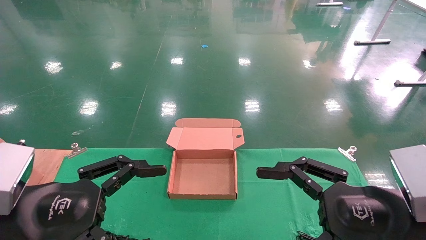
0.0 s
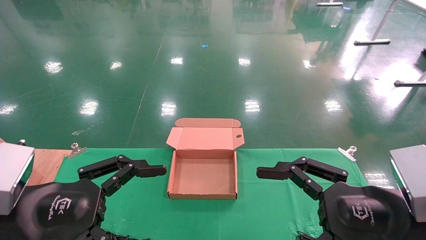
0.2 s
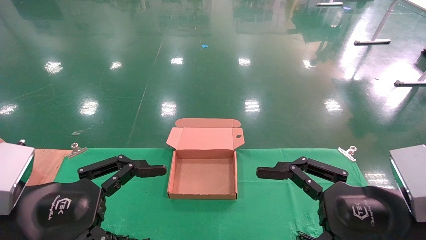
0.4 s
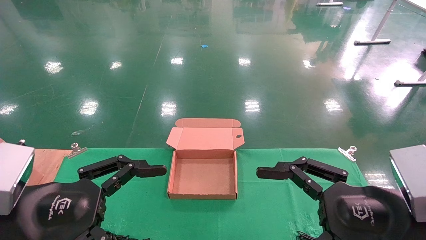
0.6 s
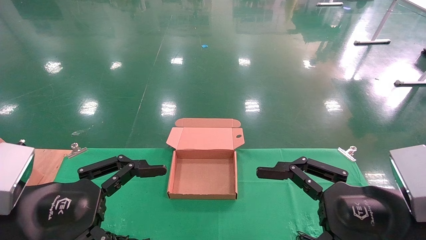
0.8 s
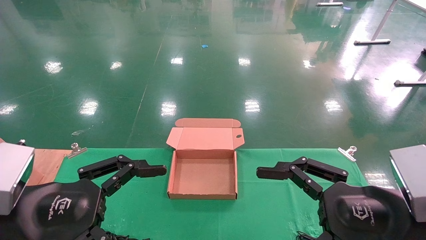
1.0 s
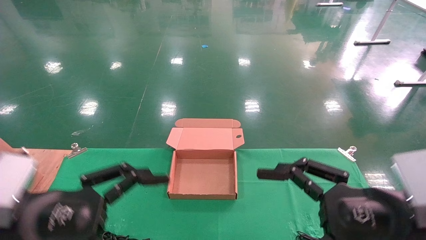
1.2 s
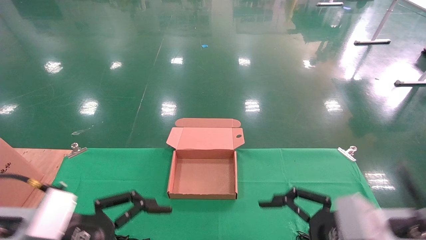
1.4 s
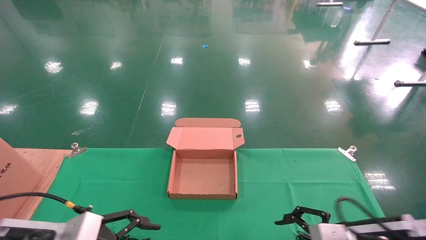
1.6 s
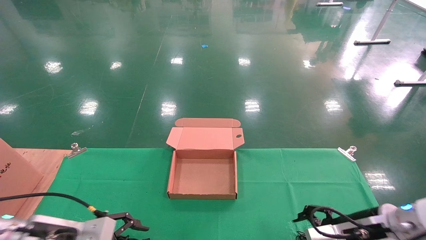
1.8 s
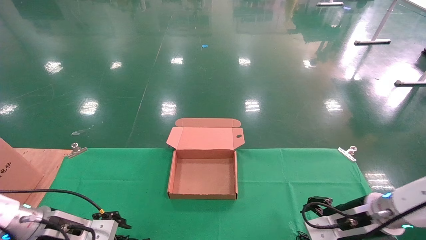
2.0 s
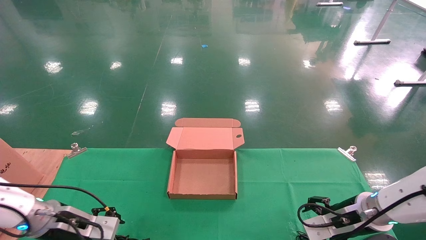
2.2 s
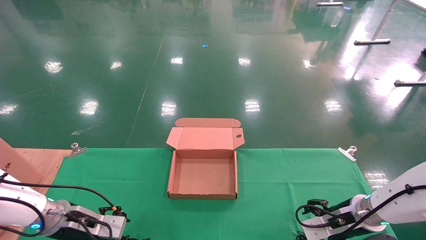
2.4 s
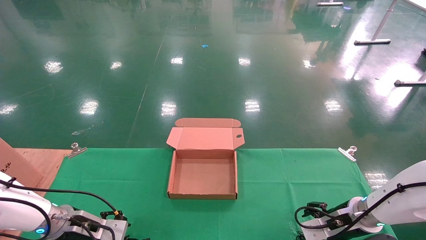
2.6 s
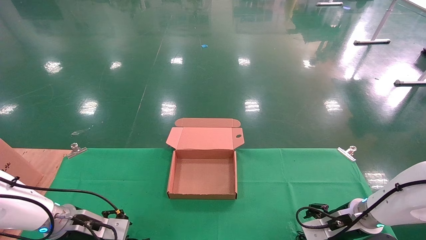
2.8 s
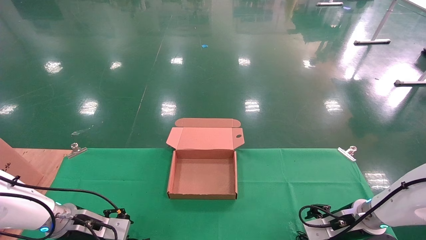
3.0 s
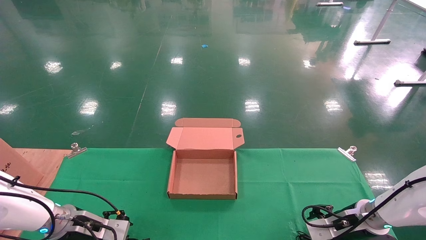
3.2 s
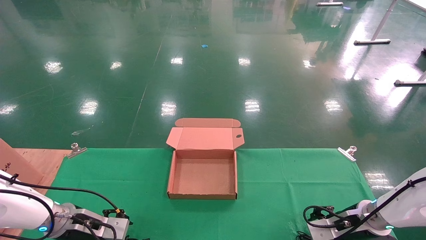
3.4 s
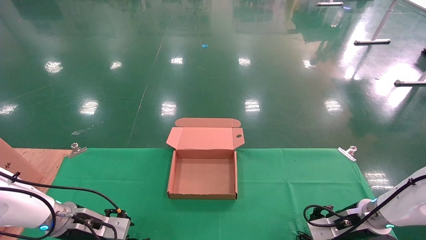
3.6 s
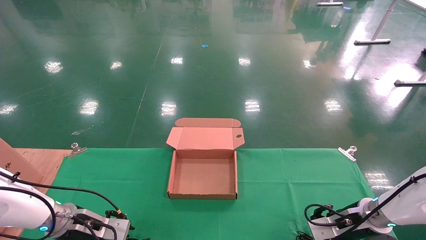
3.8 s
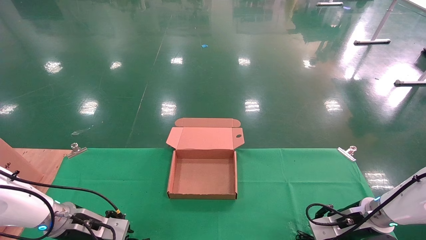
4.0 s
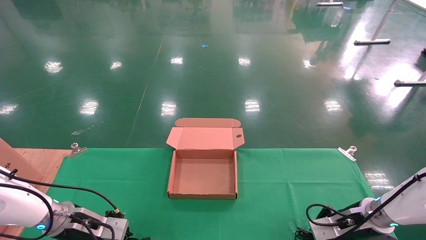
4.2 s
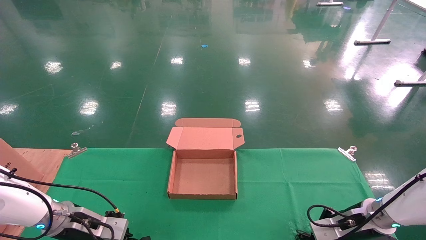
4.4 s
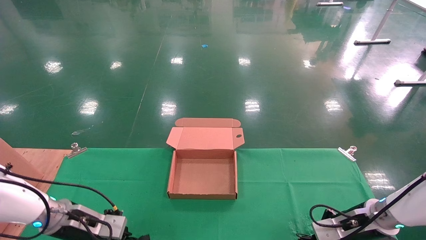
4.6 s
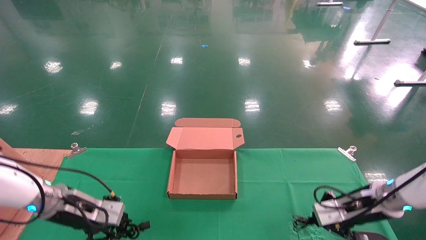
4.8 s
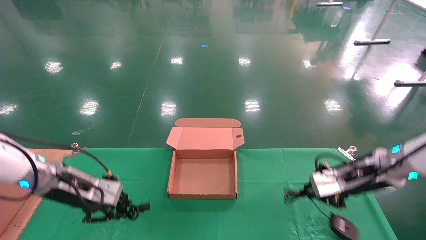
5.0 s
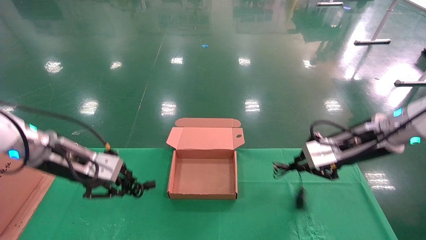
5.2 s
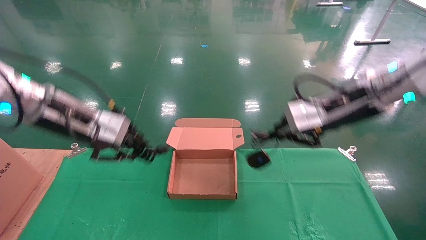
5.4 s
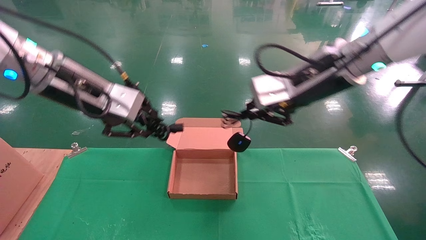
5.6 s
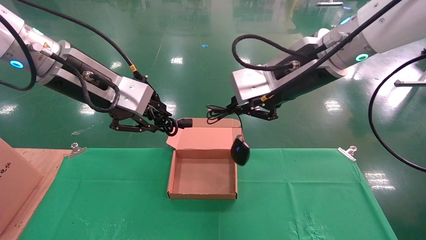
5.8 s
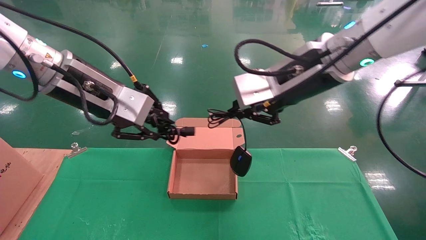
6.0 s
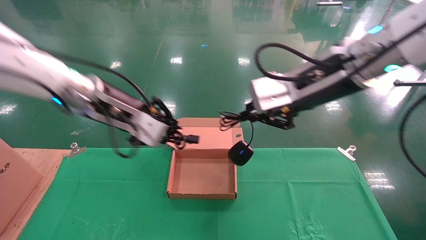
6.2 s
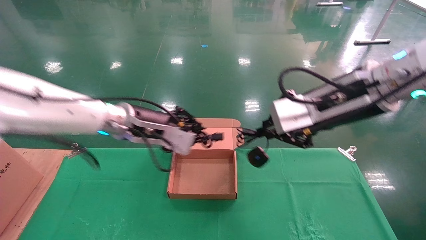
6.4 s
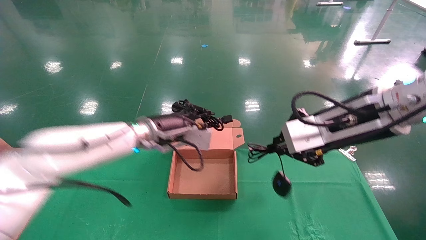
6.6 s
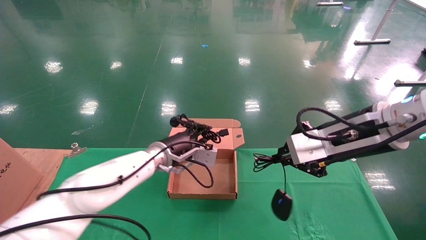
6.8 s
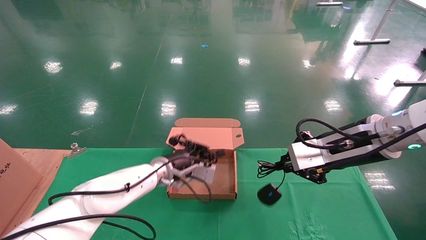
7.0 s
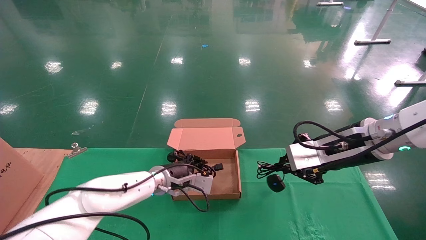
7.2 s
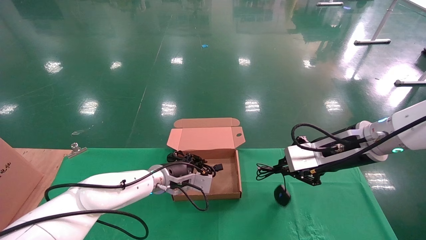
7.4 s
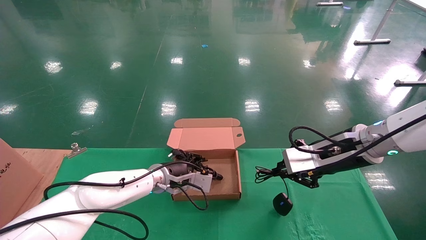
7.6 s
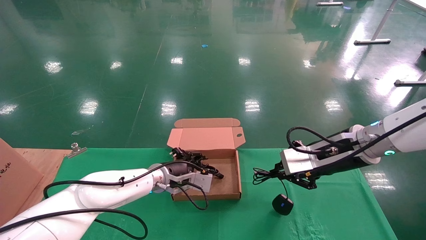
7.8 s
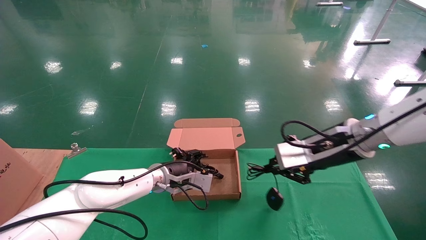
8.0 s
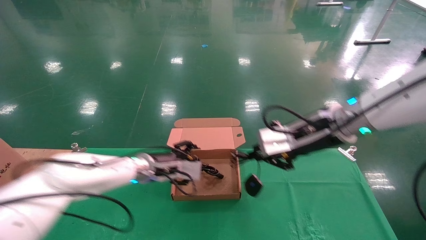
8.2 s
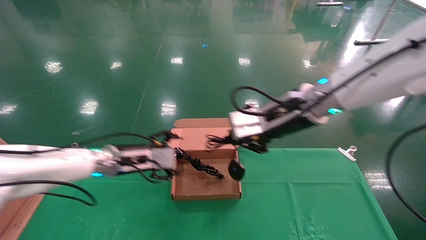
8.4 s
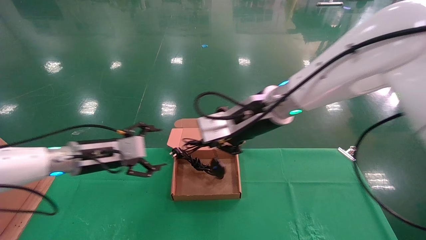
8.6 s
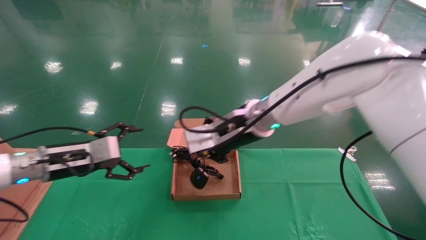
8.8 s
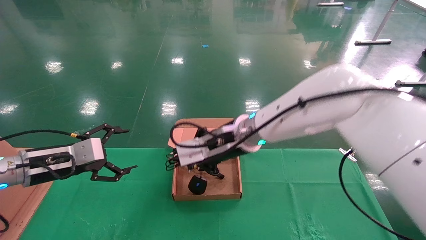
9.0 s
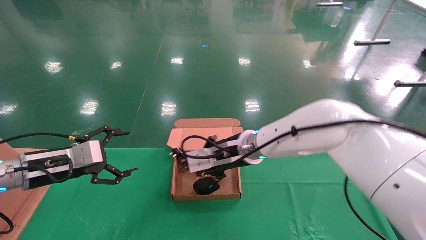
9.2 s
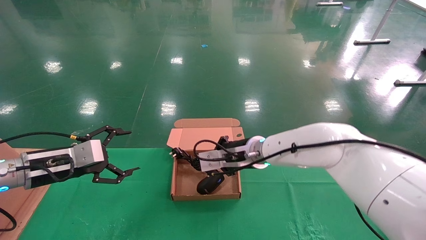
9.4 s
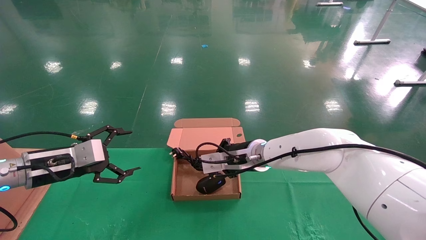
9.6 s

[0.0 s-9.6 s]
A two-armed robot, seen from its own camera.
Step, 1.6 to 5.0 s: Grab and lift both the mouse and power cord from the accessory packaging area at the same time.
0.0 to 1.6 s: Both grippers move downward and forward, approximately 10 cm.
1.6 to 3.2 s: Both grippers travel together forward and downward, some 15 cm.
3.2 to 4.8 s: Both grippers move upward, about 5 cm. The left gripper closes up. The right gripper closes.
4.8 to 6.4 s: The right gripper goes approximately 30 cm upward, to the left and backward. Meanwhile the left gripper goes approximately 25 cm to the right and upward.
6.4 to 8.0 s: The left gripper travels downward by some 15 cm, and opens its fingers, while the right gripper is displaced downward and forward by about 10 cm.
8.0 to 9.6 s: The right gripper is displaced to the left, forward and downward by approximately 20 cm, while the left gripper travels to the left and backward by some 25 cm, and opens its fingers.

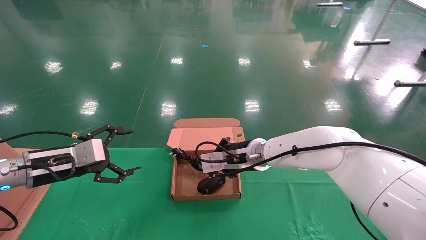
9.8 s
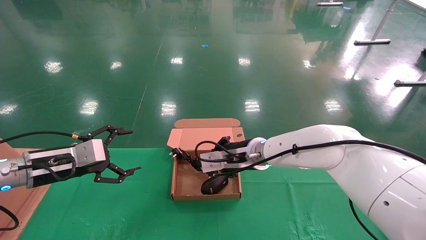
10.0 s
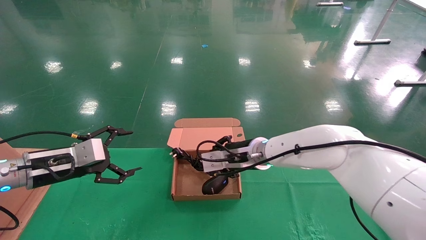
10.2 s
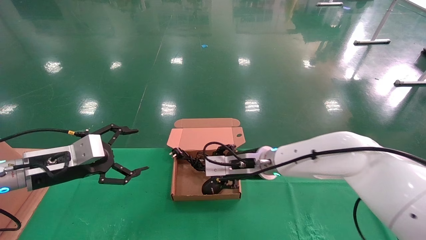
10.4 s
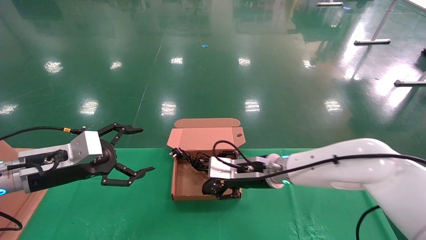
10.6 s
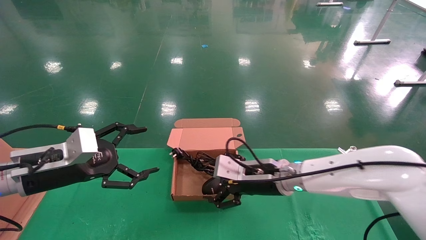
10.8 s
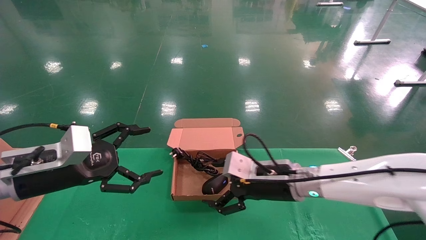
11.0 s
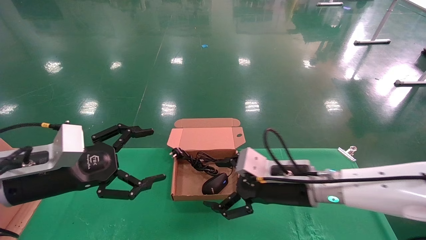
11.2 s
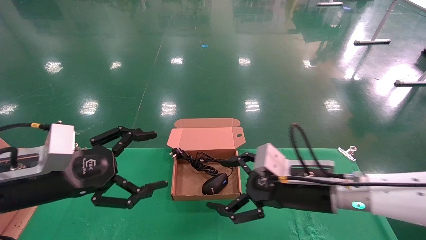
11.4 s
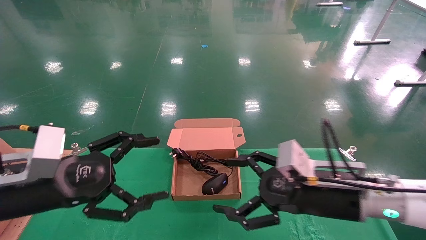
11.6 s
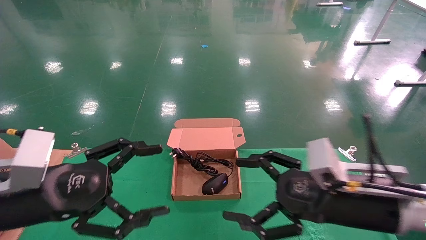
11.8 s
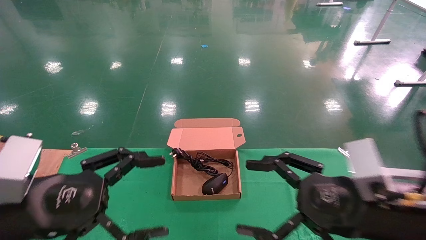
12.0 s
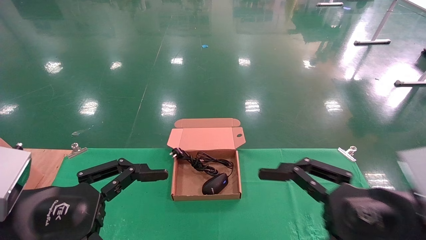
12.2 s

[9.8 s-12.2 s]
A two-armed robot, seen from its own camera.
9.8 to 11.0 s: The right gripper shifts about 10 cm backward and to the right, and opens up. The left gripper is displaced backward by about 5 cm.
11.0 to 12.2 s: The right gripper heads backward and to the right, covering some 20 cm. Meanwhile the left gripper heads backward, covering approximately 10 cm.

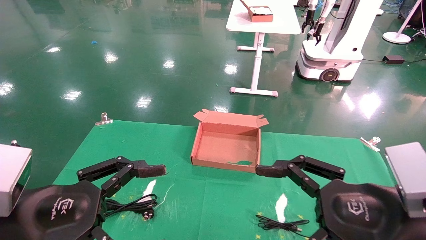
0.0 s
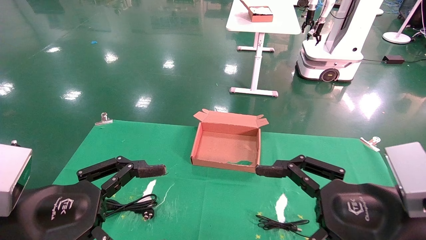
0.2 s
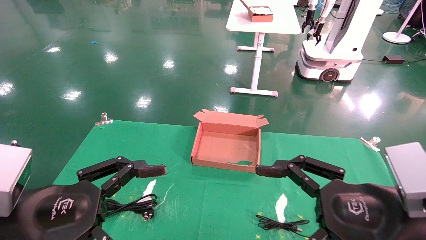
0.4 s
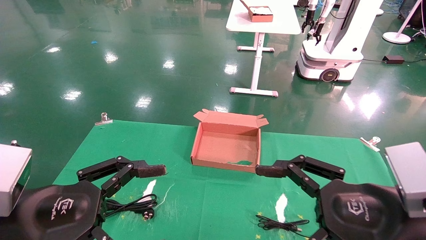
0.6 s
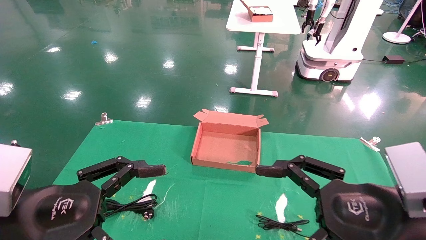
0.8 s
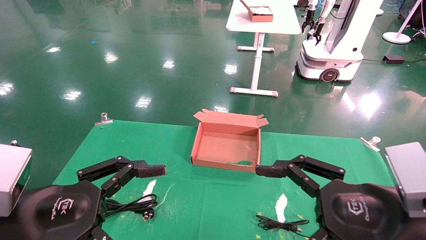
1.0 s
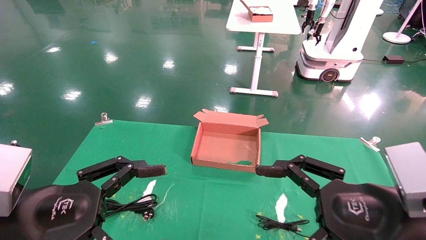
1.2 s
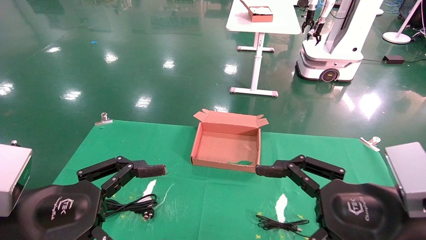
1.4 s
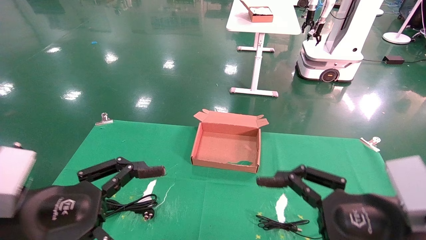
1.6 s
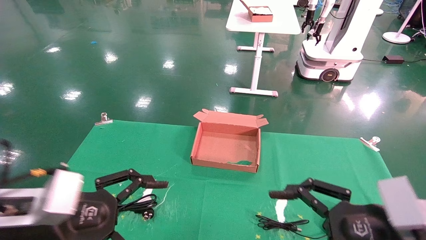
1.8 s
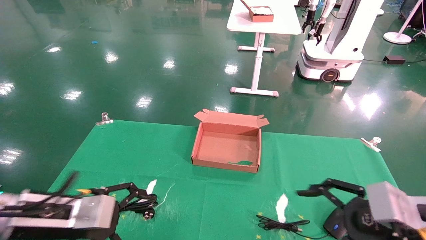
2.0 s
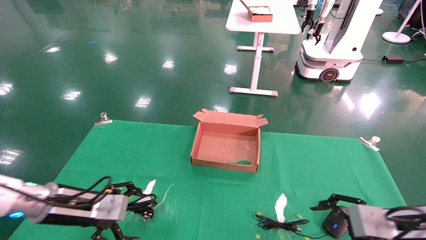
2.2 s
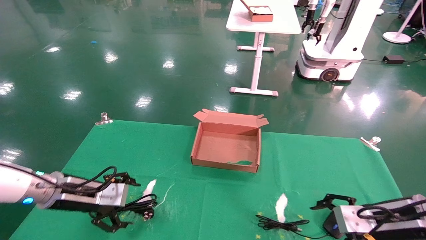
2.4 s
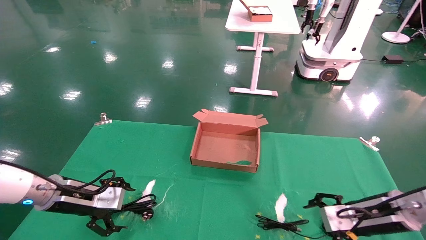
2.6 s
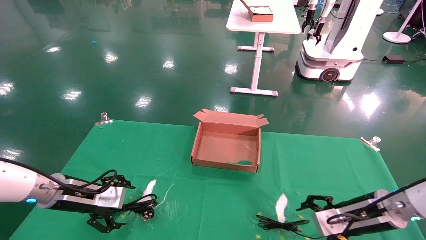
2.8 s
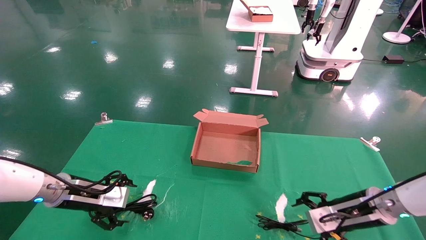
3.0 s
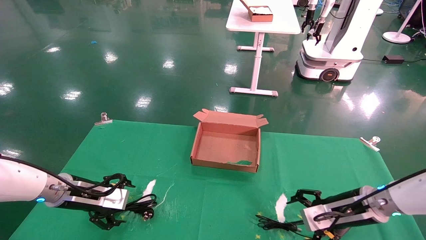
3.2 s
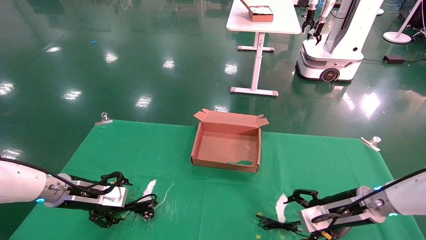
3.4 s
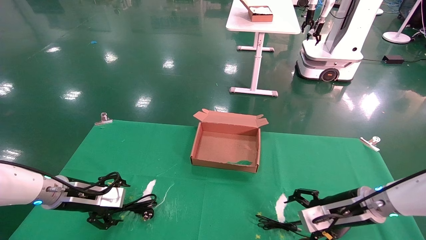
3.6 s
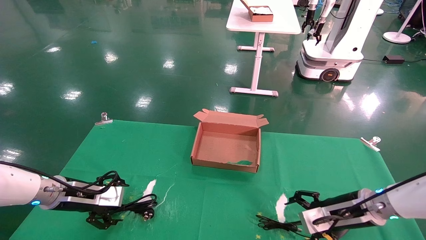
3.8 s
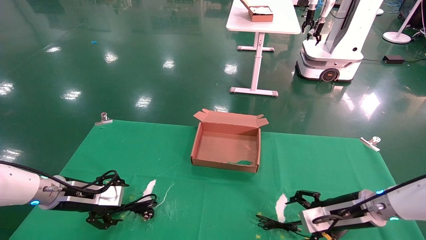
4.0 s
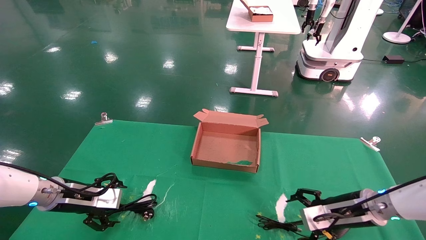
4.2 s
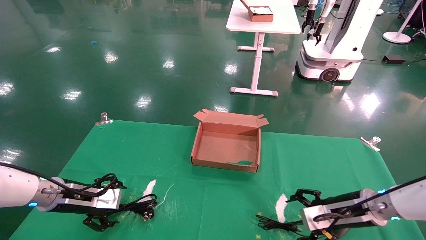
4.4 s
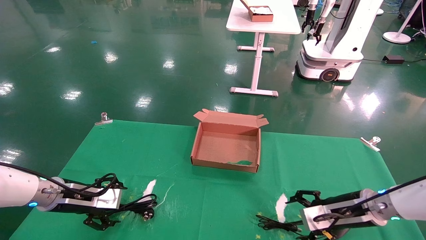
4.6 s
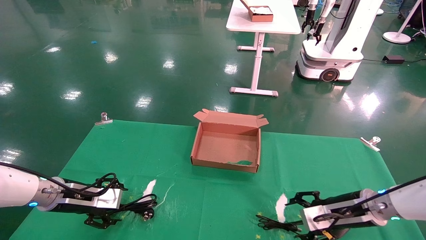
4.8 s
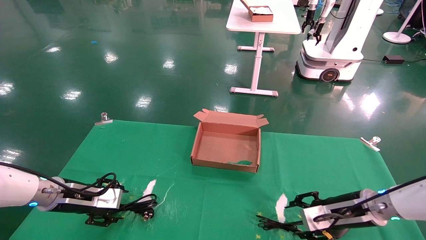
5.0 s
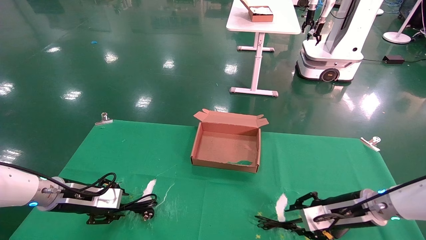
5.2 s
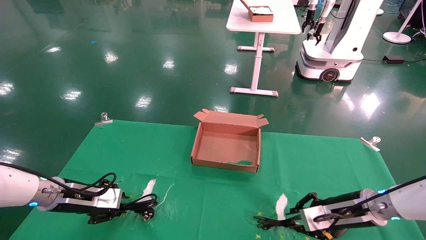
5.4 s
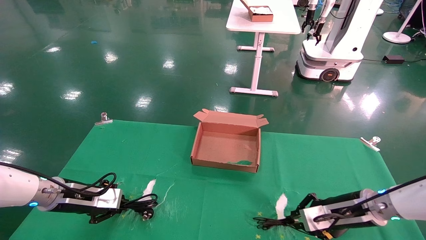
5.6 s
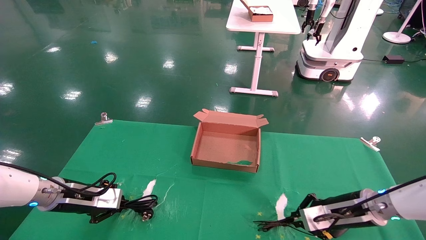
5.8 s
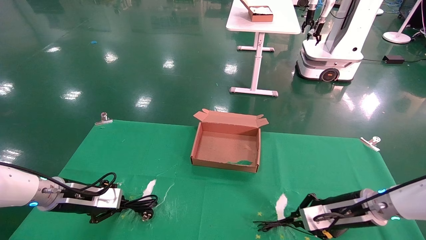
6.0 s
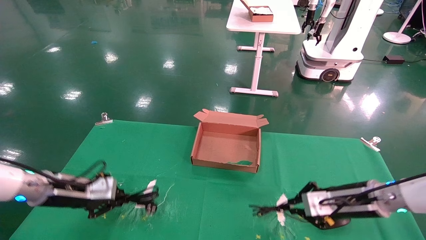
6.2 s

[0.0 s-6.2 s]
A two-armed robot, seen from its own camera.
Step, 1.8 to 6.0 s: Grab and lift both the mouse and power cord from the accessory packaging area at the same time.
0.0 to 1.6 s: The grippers stay close to where they were, moving slightly.
1.6 to 3.2 s: The right gripper goes some 20 cm forward and downward, while the left gripper shifts roughly 20 cm forward.
3.2 to 4.6 s: The grippers move only a little.
4.6 to 6.2 s: The right gripper closes up. The left gripper closes its fingers.
